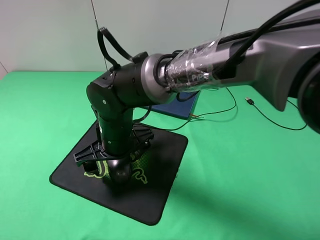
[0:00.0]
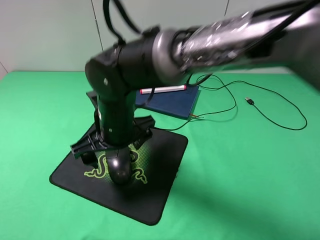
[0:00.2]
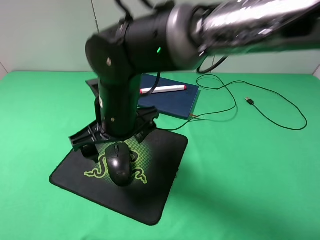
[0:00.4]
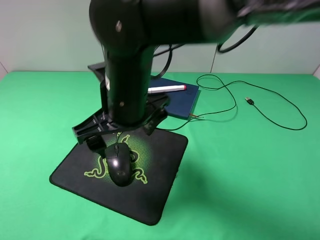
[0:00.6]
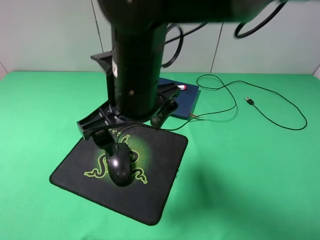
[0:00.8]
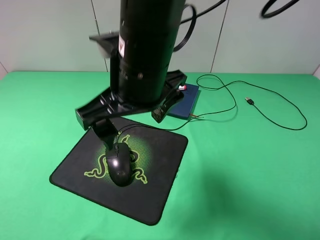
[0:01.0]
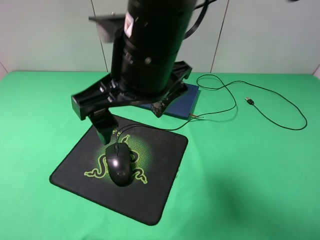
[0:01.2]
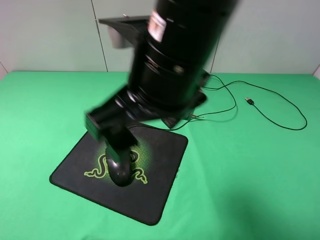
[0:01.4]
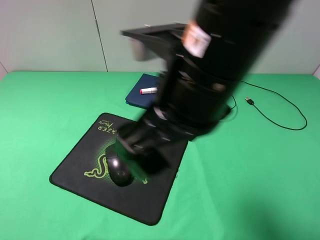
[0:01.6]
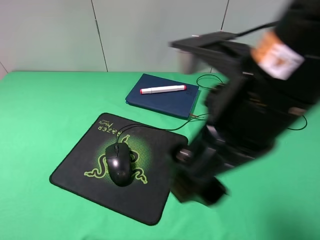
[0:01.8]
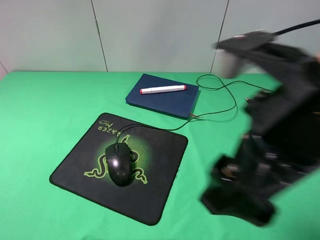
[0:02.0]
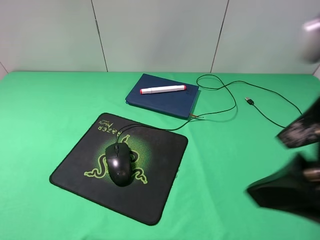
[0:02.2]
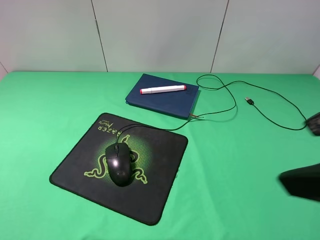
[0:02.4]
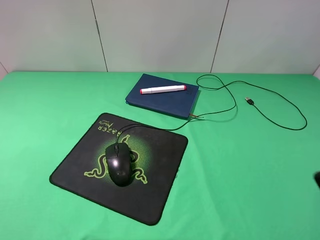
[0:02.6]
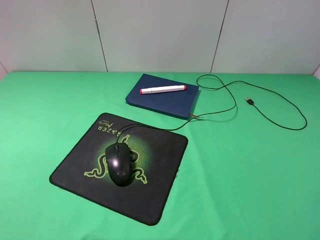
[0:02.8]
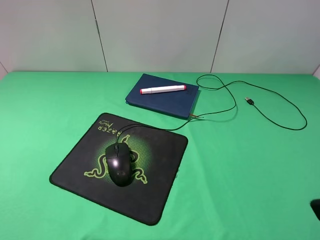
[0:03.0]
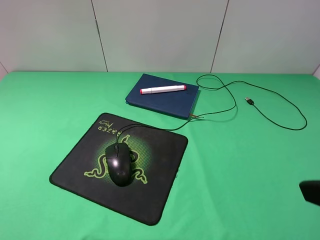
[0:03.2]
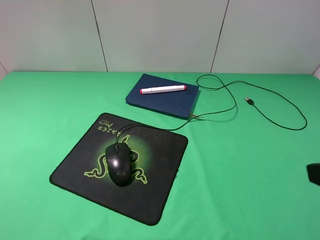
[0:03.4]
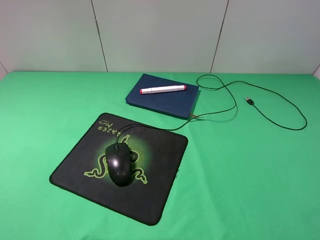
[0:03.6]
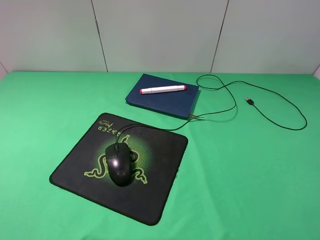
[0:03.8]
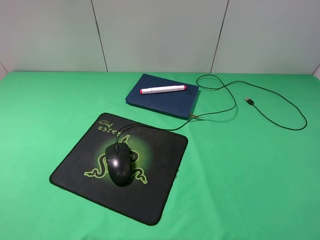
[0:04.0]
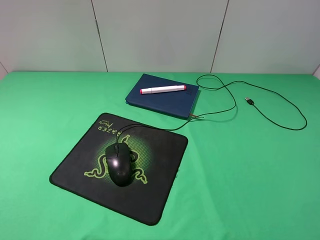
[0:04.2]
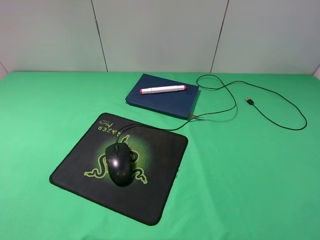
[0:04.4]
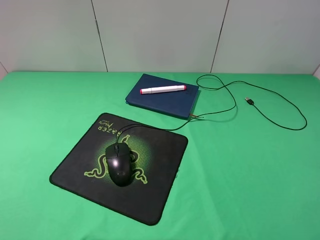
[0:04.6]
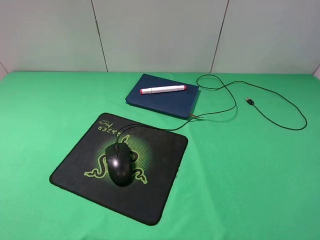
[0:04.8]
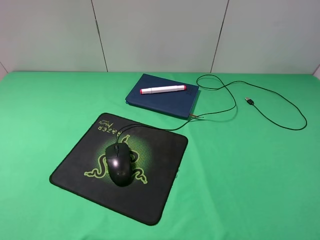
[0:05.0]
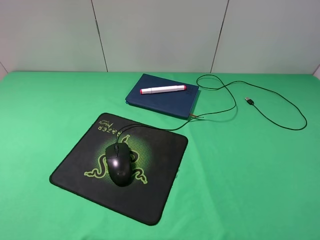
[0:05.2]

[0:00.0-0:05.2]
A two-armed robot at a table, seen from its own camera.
0:00.0 to 0:01.8: The right gripper moves upward, to the right and backward, roughly 30 cm.
0:01.8 to 0:03.4: The right gripper moves to the right, roughly 20 cm.
